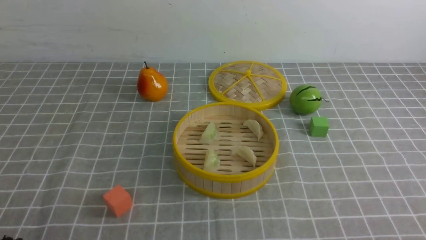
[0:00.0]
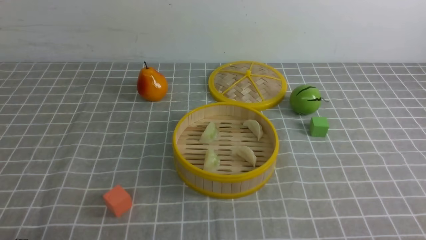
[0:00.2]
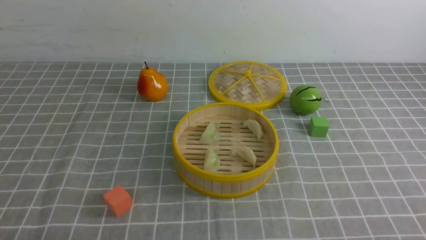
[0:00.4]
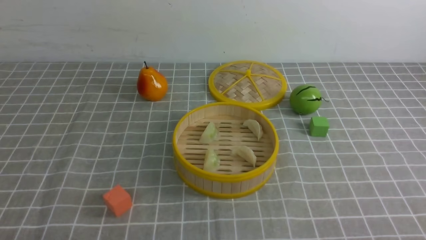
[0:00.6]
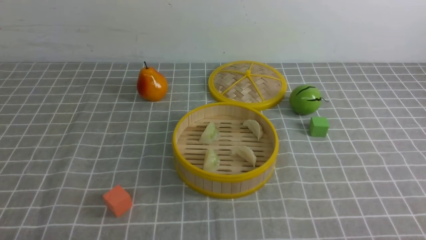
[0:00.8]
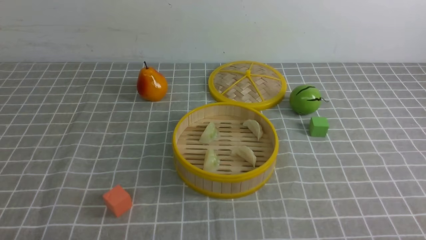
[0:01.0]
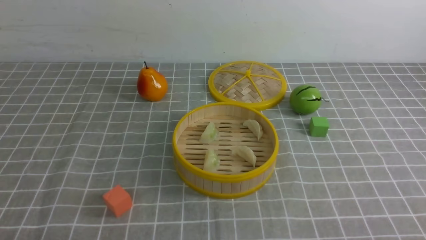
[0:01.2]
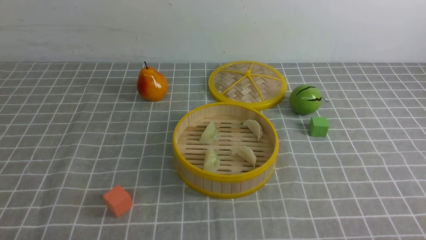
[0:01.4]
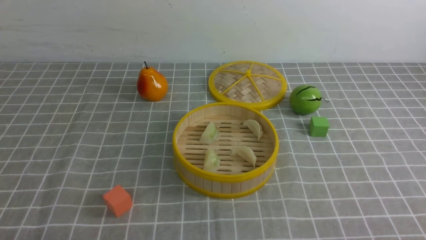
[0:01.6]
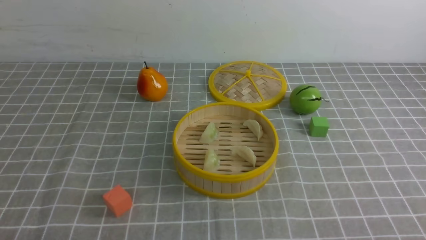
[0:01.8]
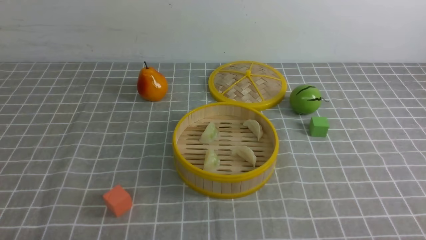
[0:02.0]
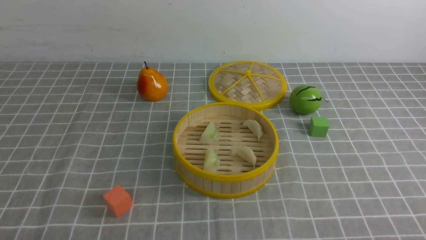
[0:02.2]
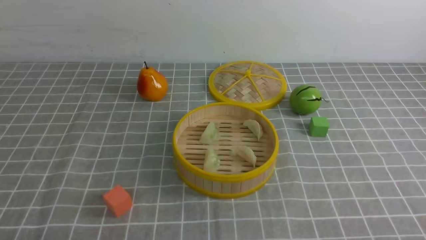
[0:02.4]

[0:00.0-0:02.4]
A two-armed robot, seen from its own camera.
Task of the whole recording: put the dumplings into the steamer on the table with the grey tablecloth.
0:01.2 to 0:02.4: Both grippers stay put.
